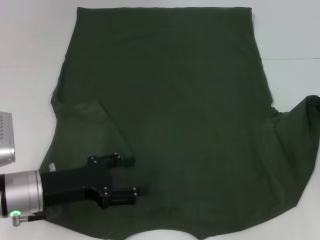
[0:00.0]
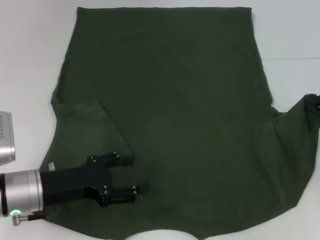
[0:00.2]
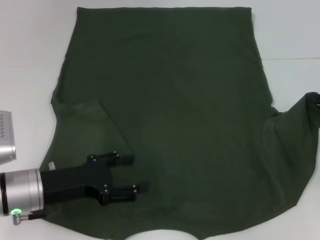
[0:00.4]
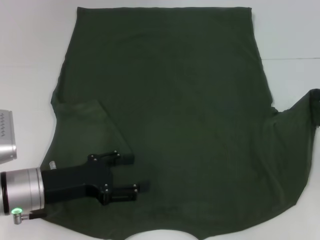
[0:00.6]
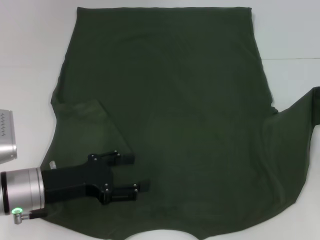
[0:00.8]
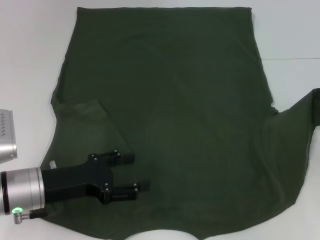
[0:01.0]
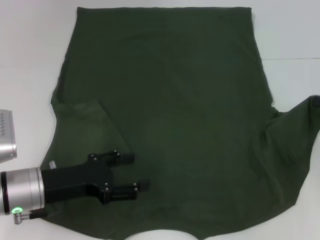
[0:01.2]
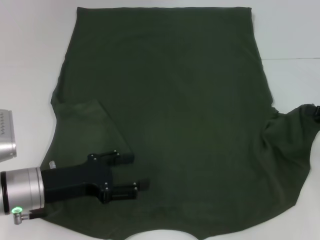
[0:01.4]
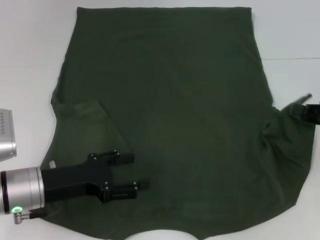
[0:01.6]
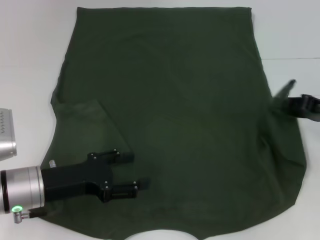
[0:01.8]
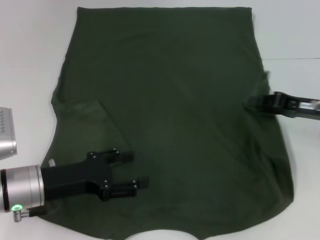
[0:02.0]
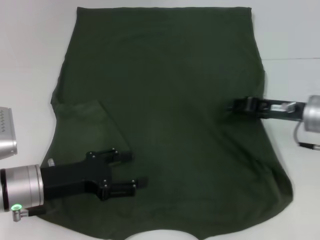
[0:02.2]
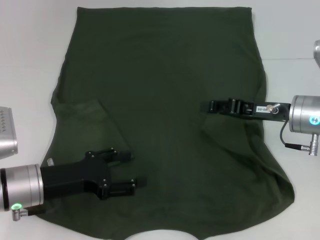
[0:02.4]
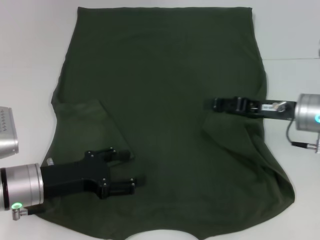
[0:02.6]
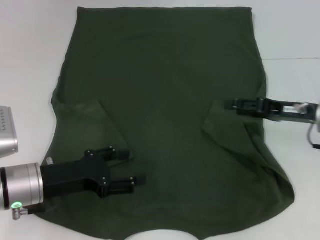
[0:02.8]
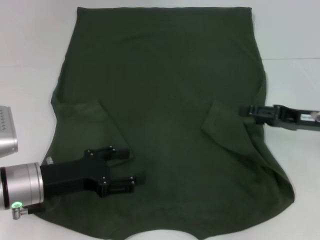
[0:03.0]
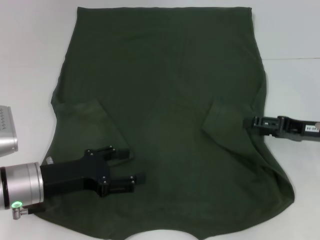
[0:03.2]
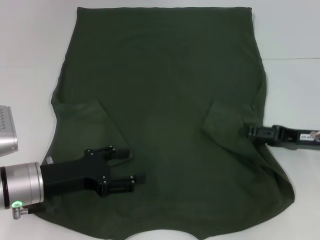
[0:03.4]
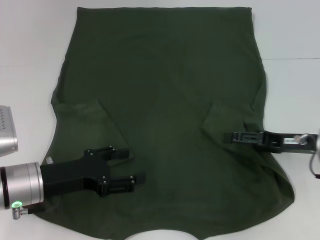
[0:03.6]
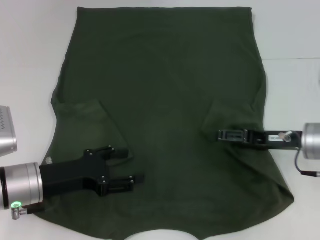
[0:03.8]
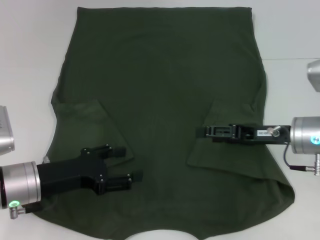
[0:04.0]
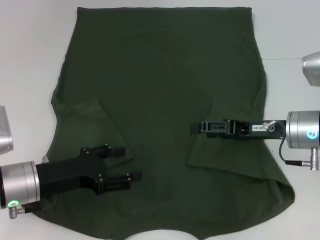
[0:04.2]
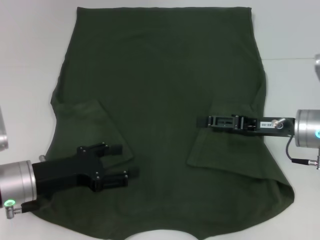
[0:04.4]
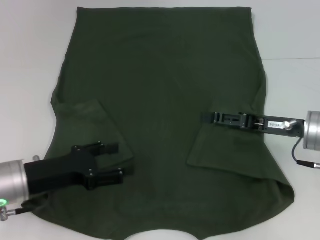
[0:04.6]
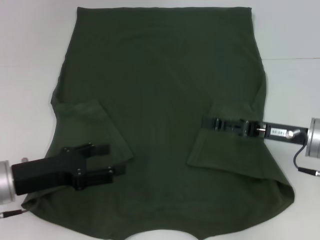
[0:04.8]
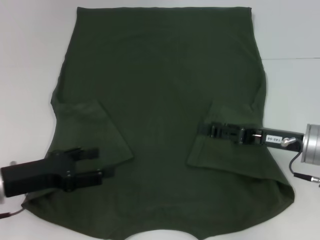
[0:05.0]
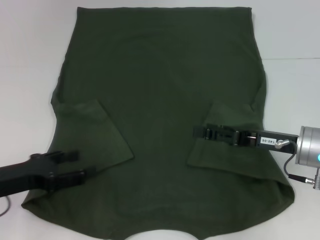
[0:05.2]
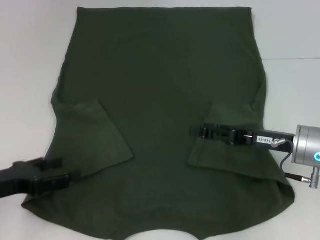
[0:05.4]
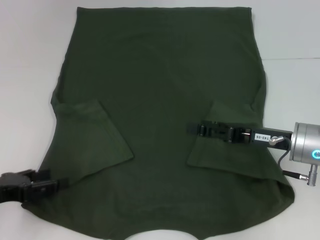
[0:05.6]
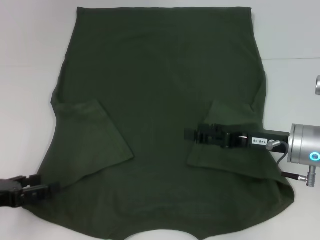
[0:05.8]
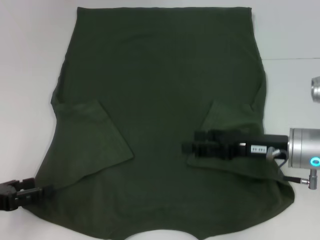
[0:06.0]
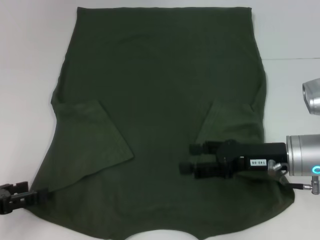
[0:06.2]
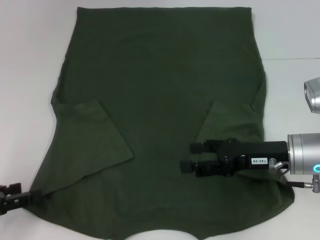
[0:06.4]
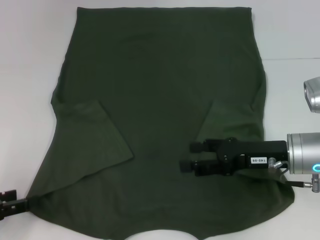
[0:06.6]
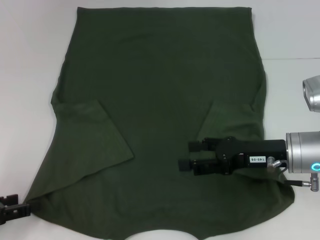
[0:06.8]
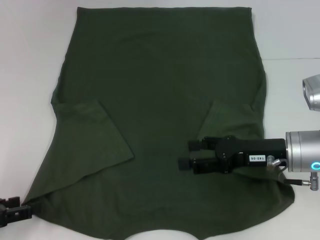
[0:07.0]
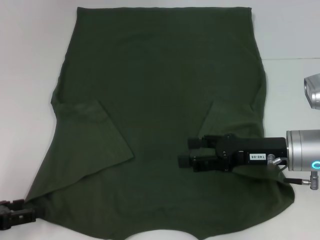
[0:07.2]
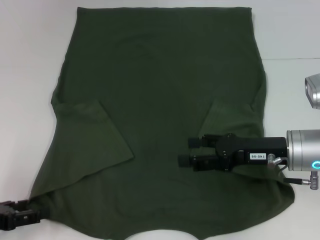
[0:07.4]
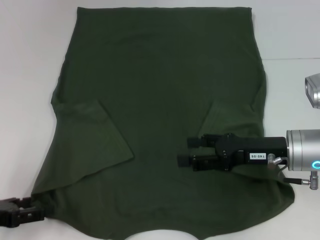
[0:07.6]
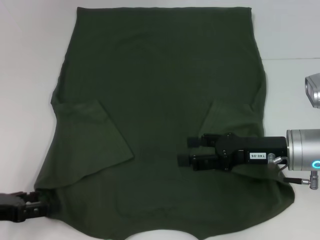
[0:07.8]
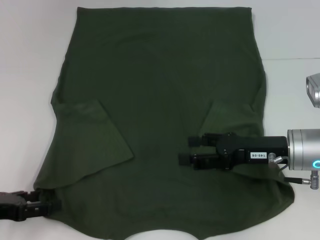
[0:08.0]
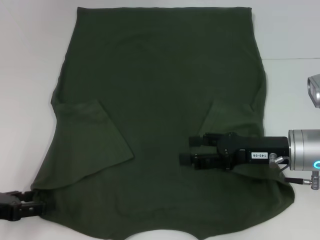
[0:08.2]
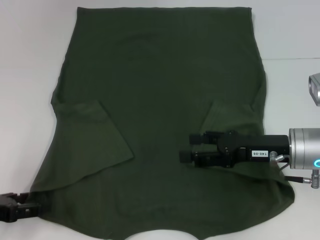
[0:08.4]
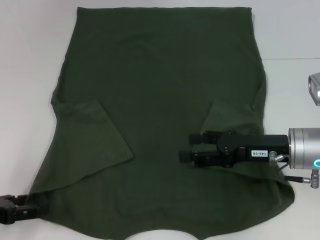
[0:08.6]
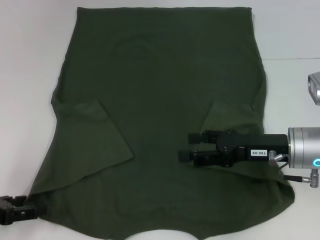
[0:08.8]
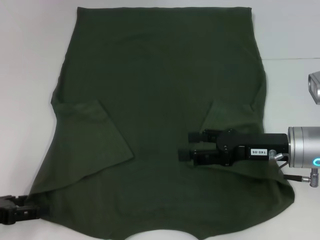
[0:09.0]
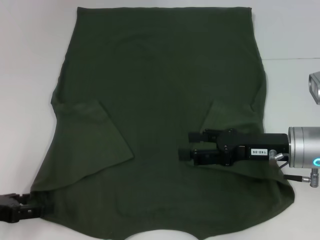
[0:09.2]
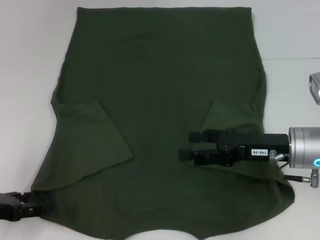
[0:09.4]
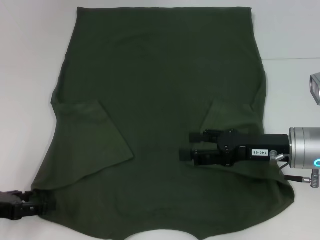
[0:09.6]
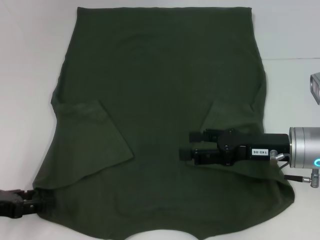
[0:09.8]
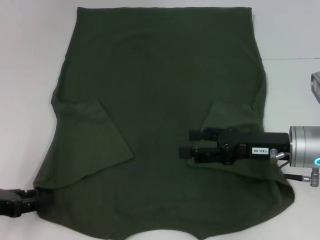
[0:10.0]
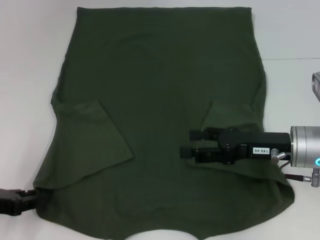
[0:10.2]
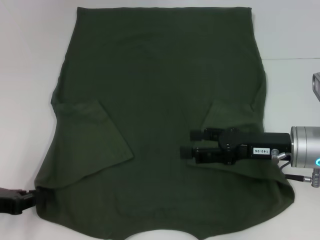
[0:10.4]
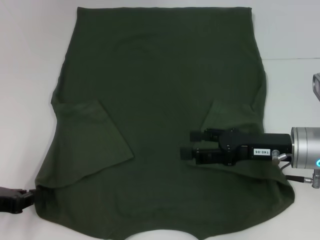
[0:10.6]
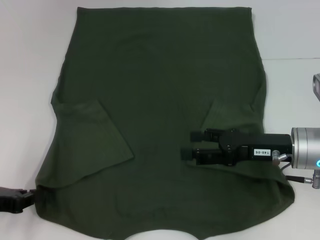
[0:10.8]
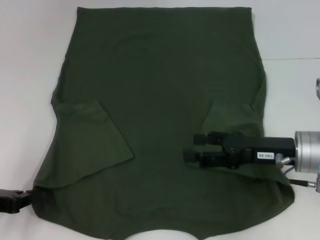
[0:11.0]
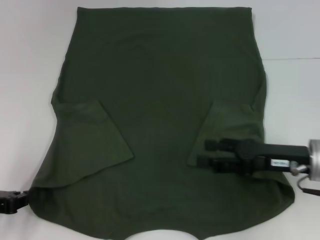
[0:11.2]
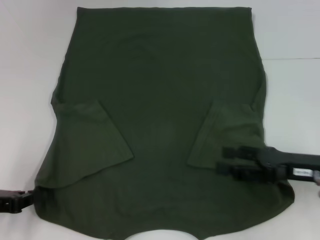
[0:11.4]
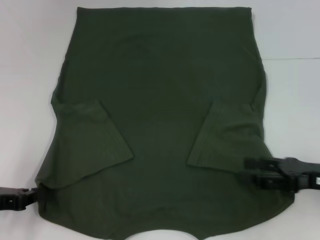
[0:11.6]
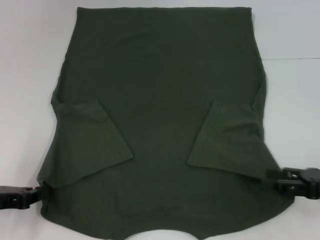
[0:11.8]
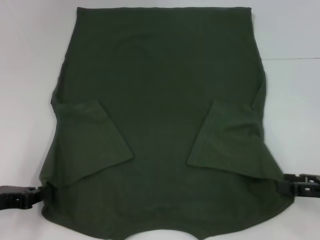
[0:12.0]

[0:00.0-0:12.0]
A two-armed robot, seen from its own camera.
Step, 0:00.0 to 0:04.4: Fold the bottom right sleeve with your right hand.
Step, 0:04.6 to 0:11.2: Grab the bottom left corner with your left hand.
0:00.0 to 0:01.6: There are only small adjustments of the grippers.
0:01.6 to 0:03.0: The right gripper heads to the left, covering about 5 cm, and opens its fingers.
0:03.0 to 0:04.4: The right gripper travels to the left by about 5 cm.
0:04.4 to 0:06.0: The left gripper goes approximately 10 cm to the left and backward.
0:06.0 to 0:09.0: There are only small adjustments of the grippers.
0:09.0 to 0:10.4: The left gripper closes up.
0:10.4 to 0:12.0: The right gripper shifts about 15 cm to the right and backward.

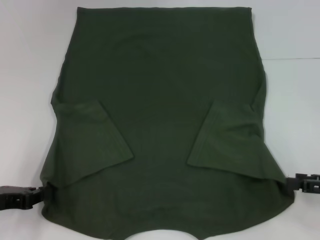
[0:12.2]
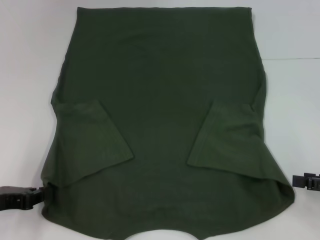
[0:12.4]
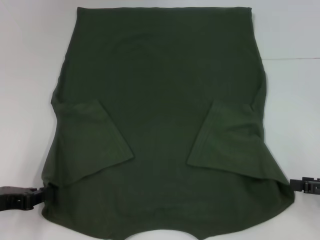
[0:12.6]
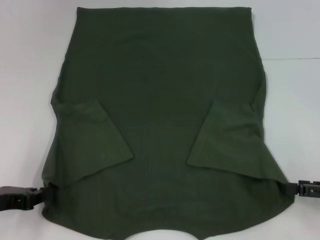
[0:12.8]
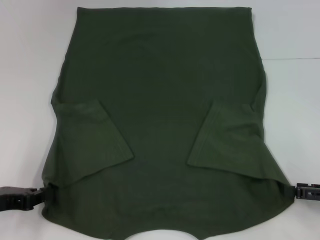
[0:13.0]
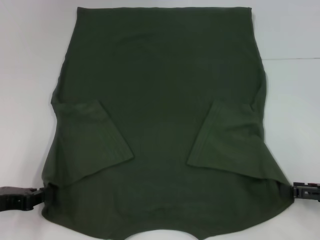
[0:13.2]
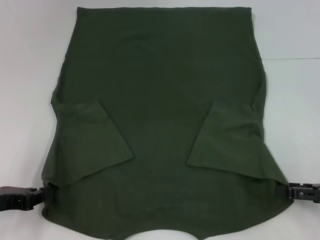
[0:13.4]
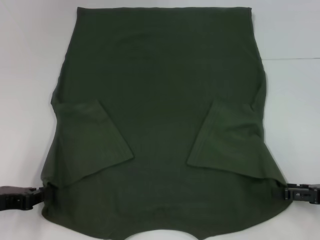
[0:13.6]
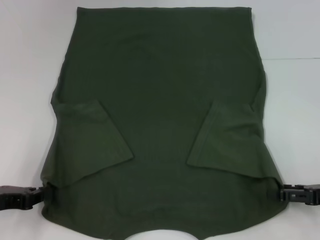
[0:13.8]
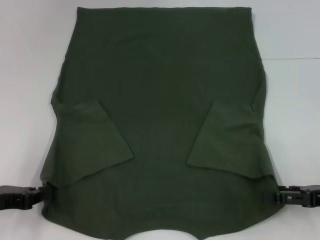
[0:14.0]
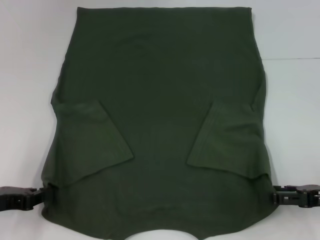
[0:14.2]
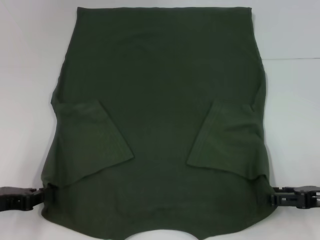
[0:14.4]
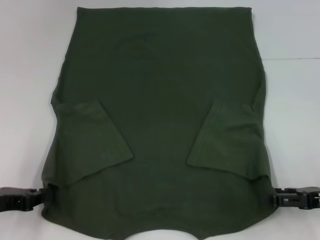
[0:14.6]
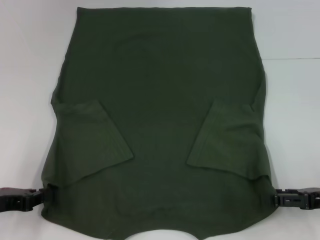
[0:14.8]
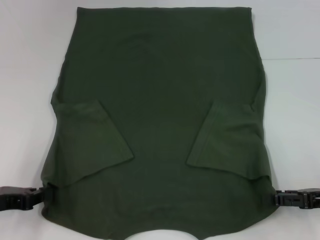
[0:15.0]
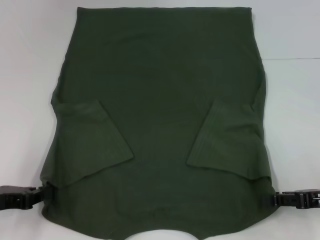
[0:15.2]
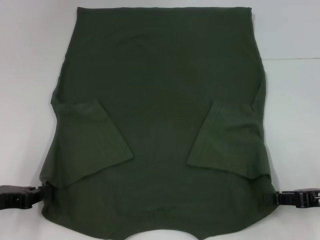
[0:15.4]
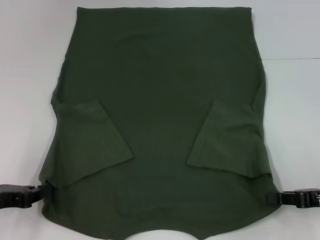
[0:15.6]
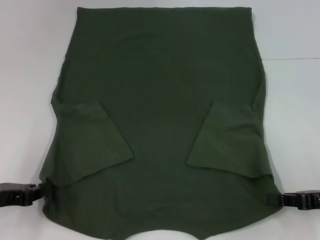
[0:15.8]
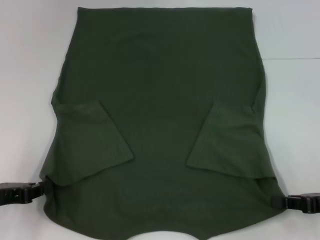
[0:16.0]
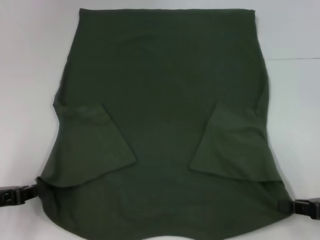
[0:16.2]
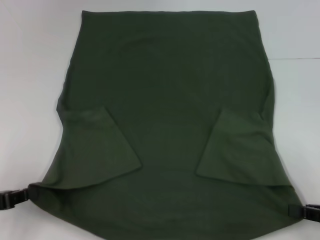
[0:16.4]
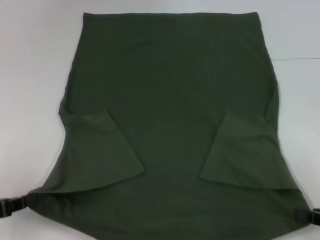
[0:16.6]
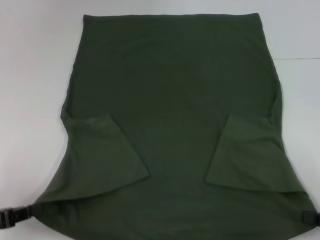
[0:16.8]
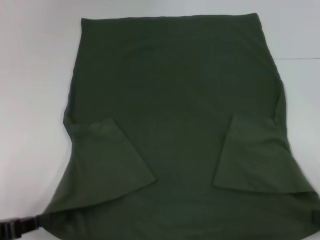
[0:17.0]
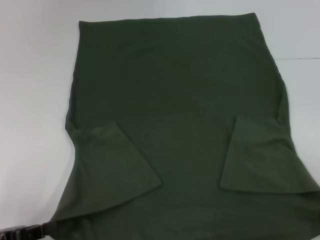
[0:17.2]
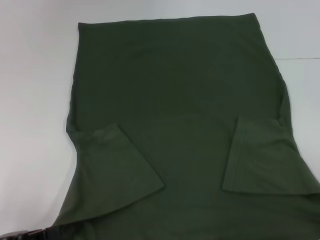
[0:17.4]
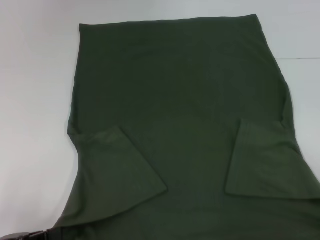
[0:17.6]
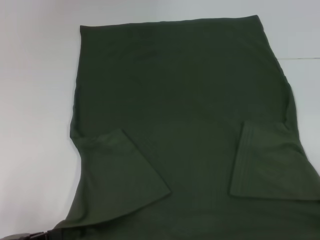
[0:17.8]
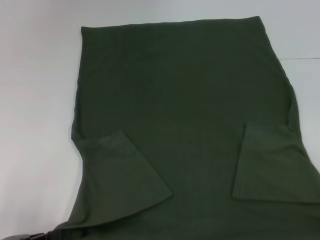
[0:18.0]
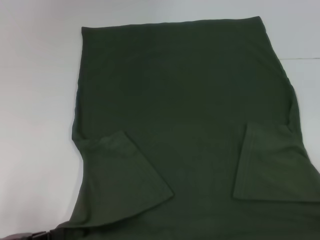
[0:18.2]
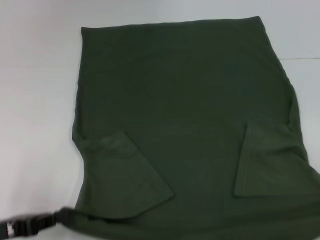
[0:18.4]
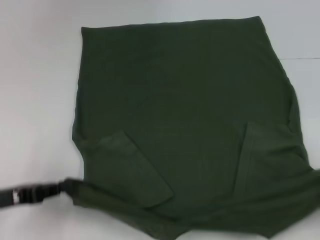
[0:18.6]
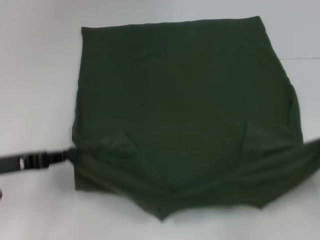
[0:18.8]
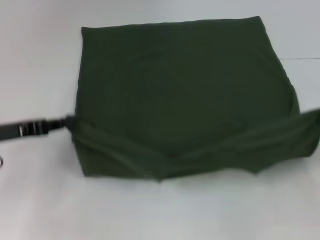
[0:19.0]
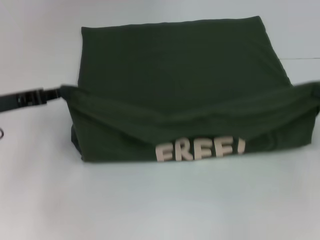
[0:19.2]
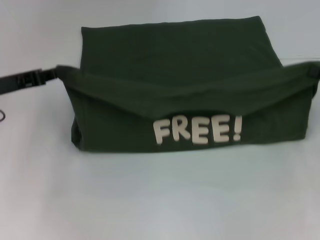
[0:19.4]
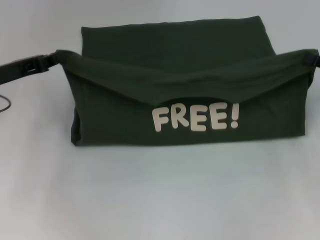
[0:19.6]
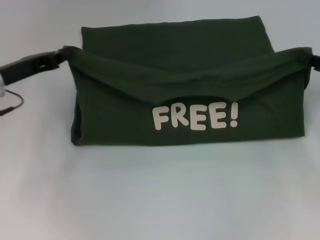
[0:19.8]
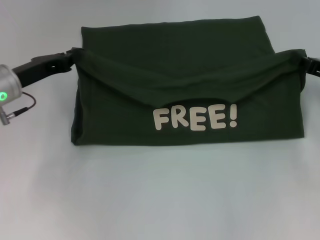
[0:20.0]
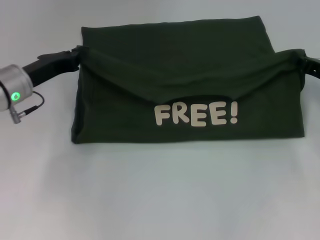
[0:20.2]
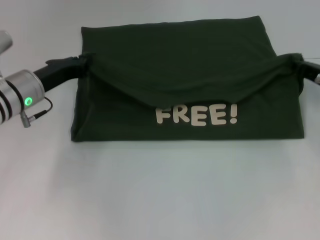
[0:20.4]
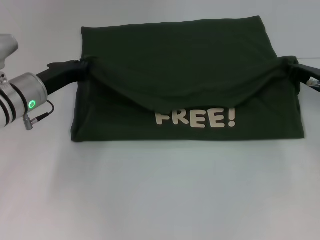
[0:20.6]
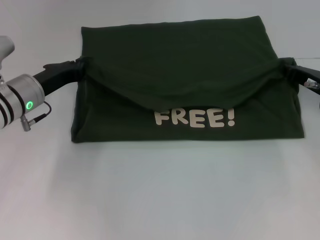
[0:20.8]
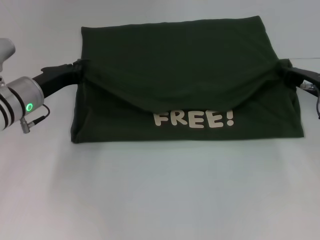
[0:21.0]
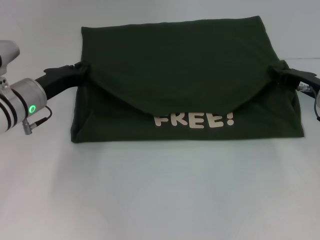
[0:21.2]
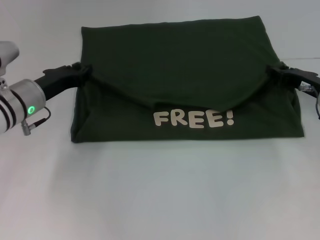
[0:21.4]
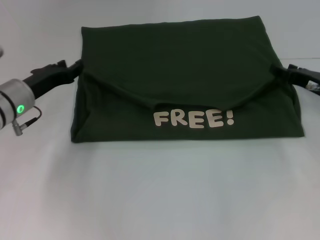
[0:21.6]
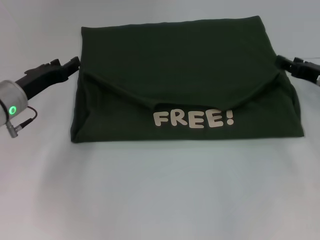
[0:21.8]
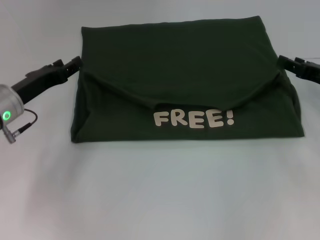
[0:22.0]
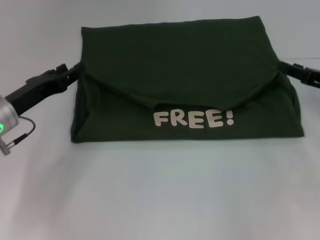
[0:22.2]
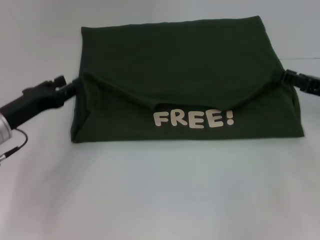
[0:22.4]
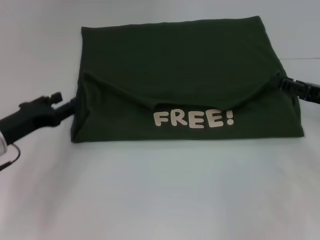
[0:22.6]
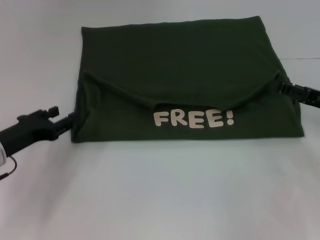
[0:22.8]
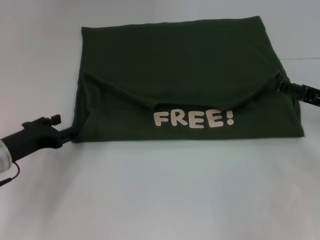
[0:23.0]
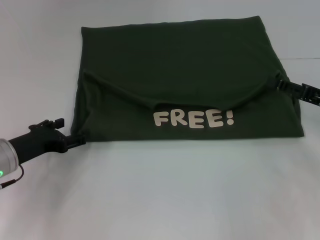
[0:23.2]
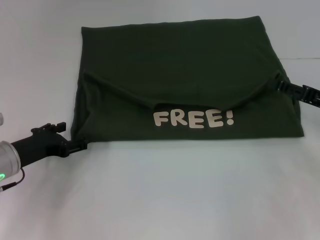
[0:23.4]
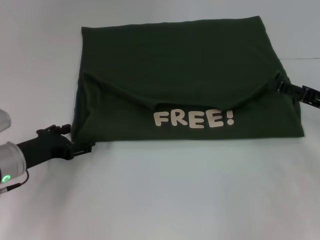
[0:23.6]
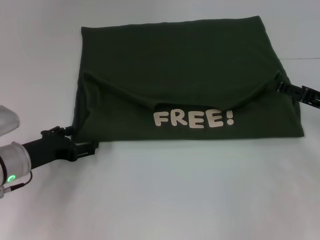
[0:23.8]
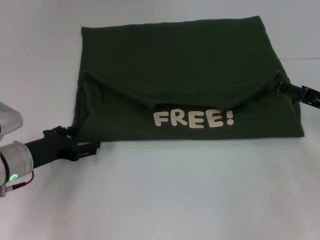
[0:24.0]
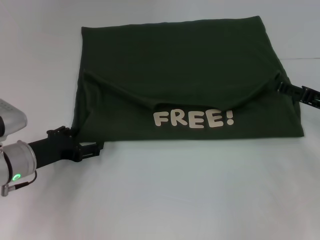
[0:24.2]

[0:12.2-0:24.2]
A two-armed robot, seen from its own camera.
Step, 0:12.2 to 0:16.0: Grab the bottom right corner with your right hand.
Step, 0:16.2 to 0:21.8: Fold the clothes with your left hand.
Step, 0:16.2 to 0:21.8: Fold the clothes with your right hand.
0:12.2 to 0:15.2: There are only small adjustments of the grippers.
0:15.2 to 0:16.6: The right gripper goes approximately 5 cm backward, and closes.
0:16.6 to 0:18.2: The right gripper is displaced to the right by some 5 cm.
0:18.2 to 0:19.8: Both grippers move forward, approximately 20 cm.
0:19.8 to 0:21.2: The left gripper is displaced to the right by approximately 5 cm; the right gripper moves to the left, roughly 5 cm.
0:21.2 to 0:22.6: The left gripper moves backward and to the left, approximately 10 cm, and opens, while the right gripper travels backward by roughly 5 cm, and opens its fingers.
